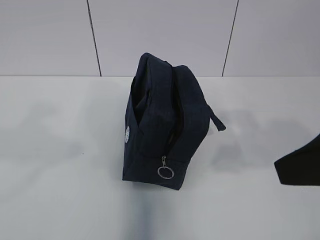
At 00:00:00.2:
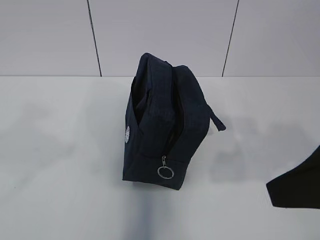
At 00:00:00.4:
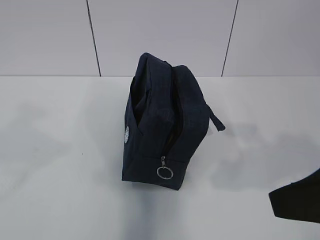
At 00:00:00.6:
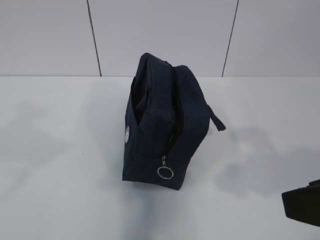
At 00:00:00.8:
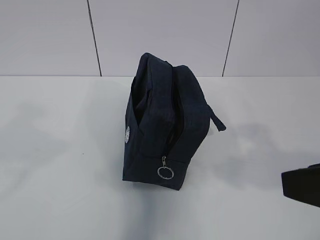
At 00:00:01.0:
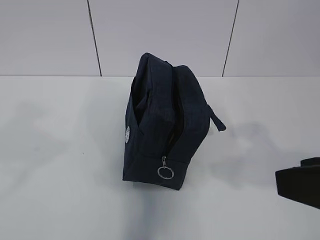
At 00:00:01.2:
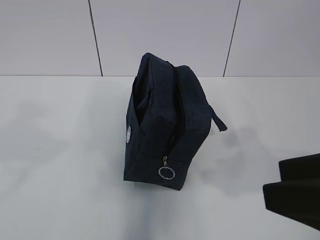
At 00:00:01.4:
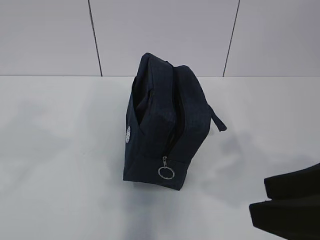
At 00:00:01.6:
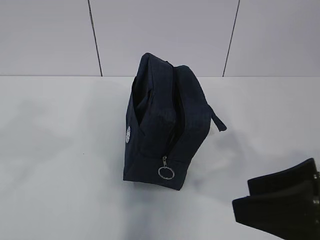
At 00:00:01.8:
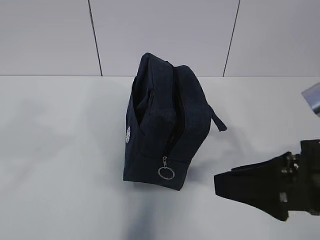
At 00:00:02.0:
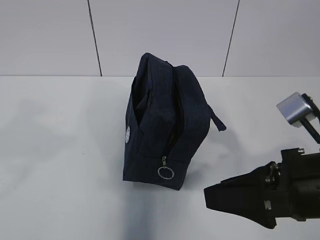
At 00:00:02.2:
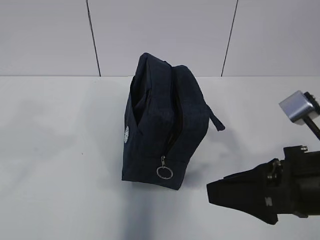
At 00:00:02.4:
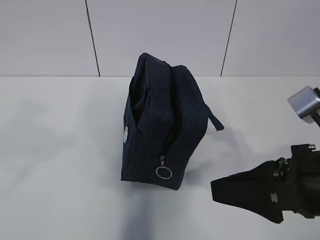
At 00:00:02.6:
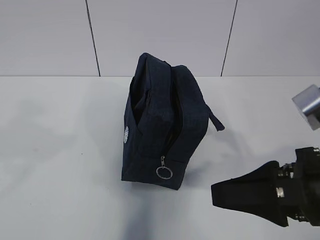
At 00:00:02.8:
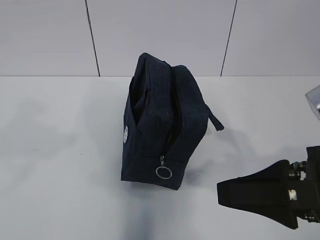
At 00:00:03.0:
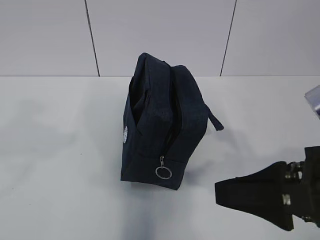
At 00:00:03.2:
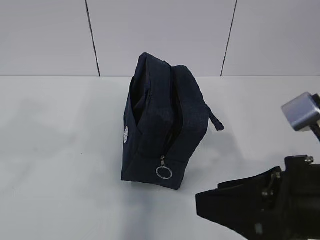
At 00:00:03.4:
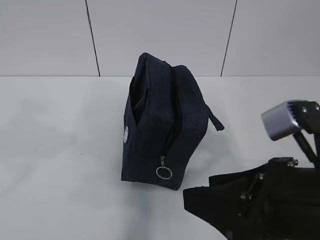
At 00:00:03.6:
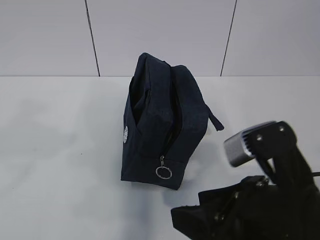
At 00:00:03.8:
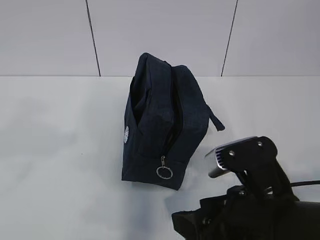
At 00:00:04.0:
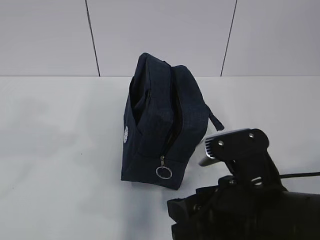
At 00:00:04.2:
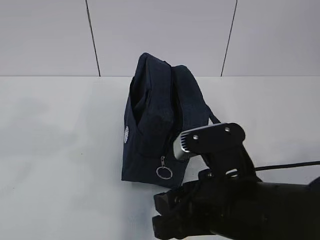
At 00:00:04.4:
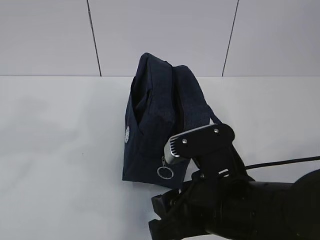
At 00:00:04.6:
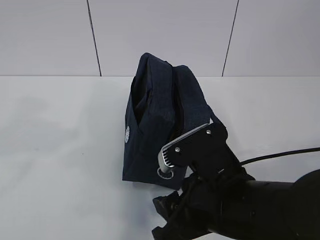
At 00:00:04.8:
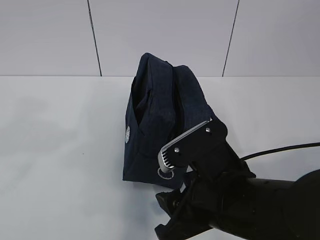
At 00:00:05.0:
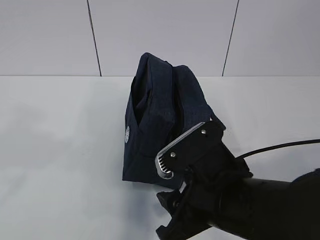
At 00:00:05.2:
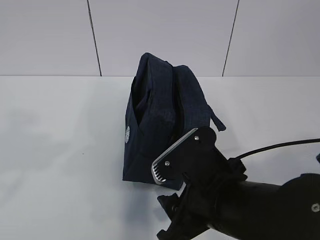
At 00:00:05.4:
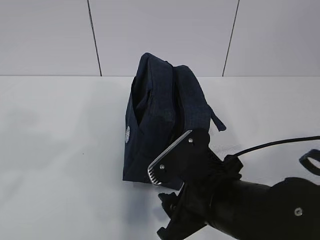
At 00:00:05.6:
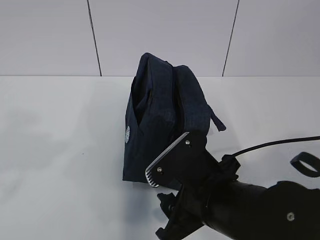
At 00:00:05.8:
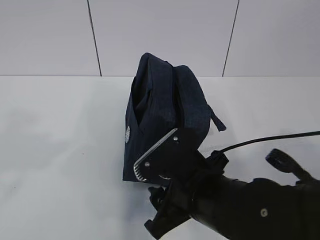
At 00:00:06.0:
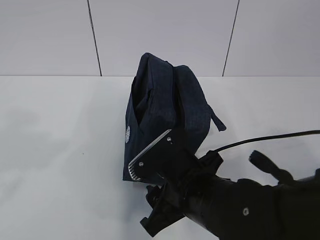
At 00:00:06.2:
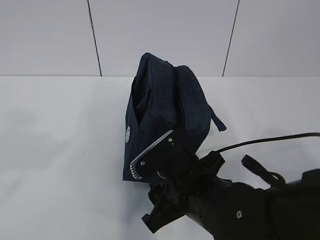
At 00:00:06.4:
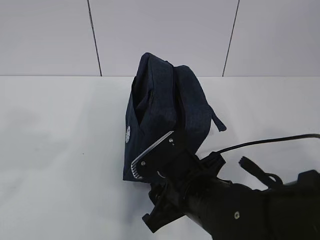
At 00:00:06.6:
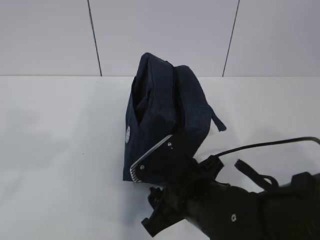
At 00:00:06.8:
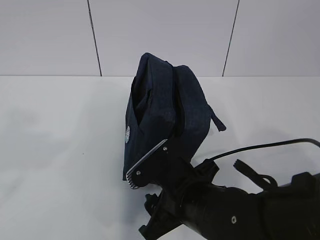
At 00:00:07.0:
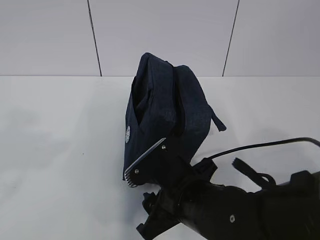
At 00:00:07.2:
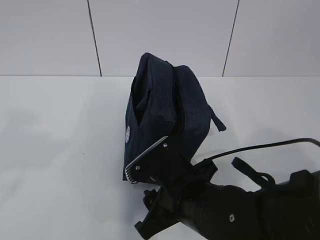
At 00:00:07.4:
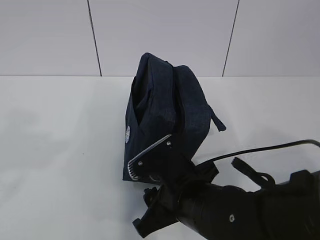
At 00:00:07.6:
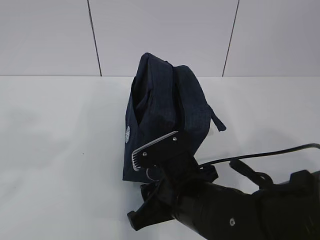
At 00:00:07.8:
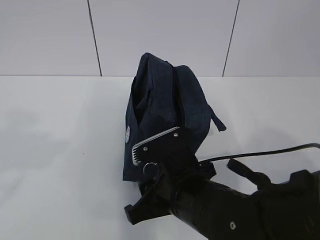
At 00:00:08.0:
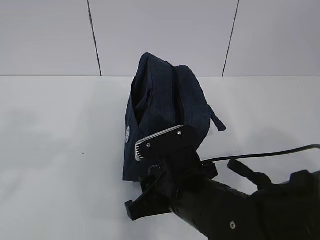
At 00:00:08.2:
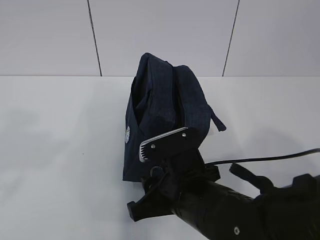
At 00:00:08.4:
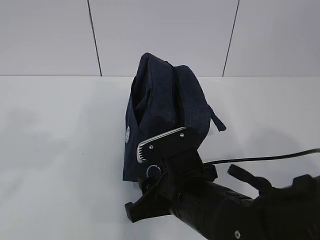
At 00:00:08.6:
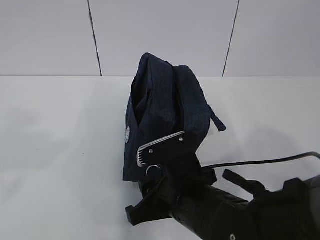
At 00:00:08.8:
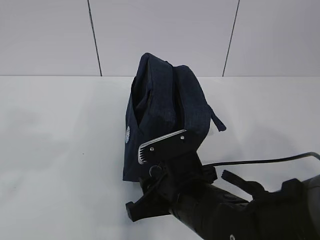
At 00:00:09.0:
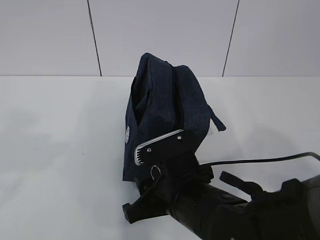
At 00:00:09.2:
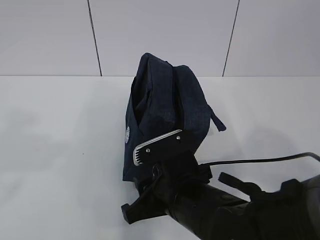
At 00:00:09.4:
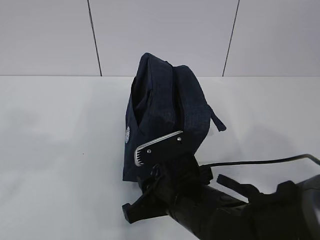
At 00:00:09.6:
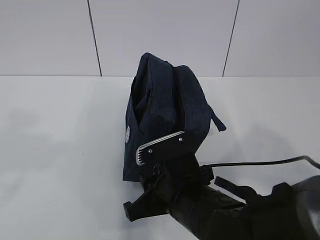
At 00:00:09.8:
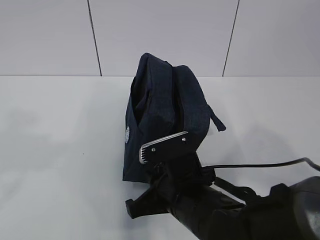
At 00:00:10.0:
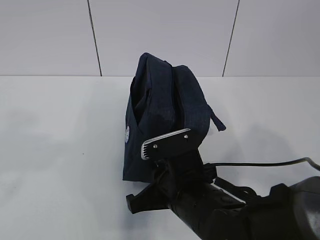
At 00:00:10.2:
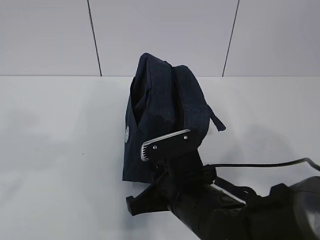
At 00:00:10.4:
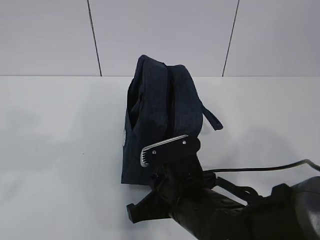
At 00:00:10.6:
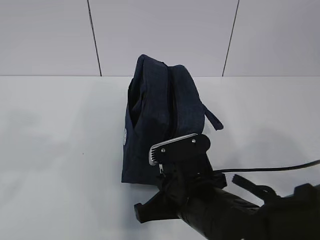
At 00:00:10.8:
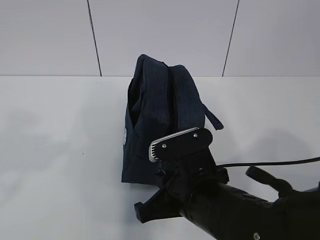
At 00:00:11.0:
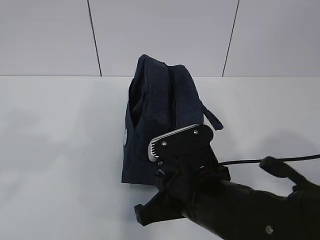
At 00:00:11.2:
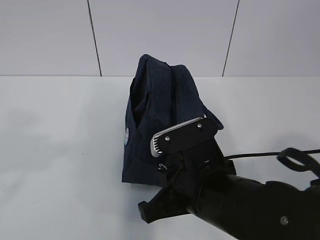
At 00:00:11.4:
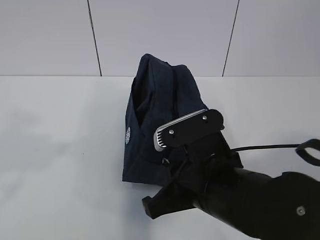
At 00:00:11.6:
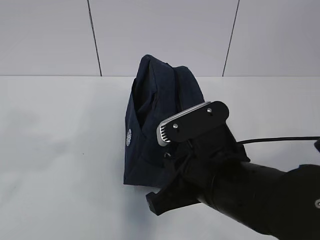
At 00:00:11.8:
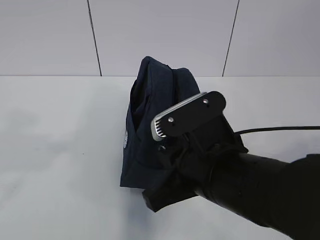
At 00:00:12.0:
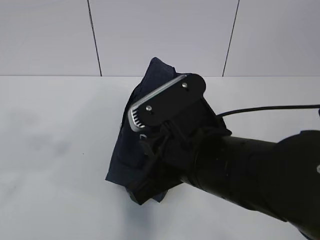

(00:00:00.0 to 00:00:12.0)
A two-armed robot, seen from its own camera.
00:00:00.0 - 00:00:01.6: The right gripper shifts approximately 5 cm downward.
00:00:03.0 - 00:00:04.4: The right gripper goes about 10 cm to the left and downward.
00:00:04.4 - 00:00:06.0: The right gripper changes place by some 5 cm.
00:00:06.0 - 00:00:07.6: The grippers move only a little.
00:00:07.6 - 00:00:09.0: The grippers move only a little.
00:00:09.0 - 00:00:10.4: The right gripper closes its fingers.
00:00:10.4 - 00:00:12.0: The right gripper moves upward, about 10 cm.

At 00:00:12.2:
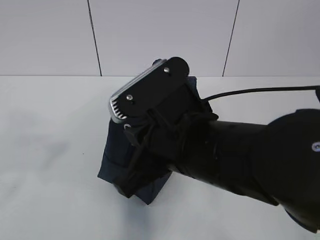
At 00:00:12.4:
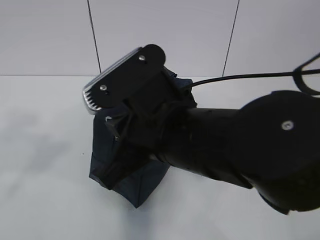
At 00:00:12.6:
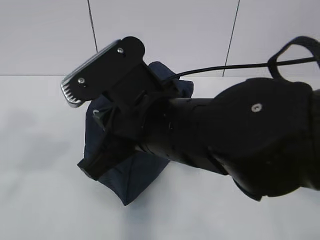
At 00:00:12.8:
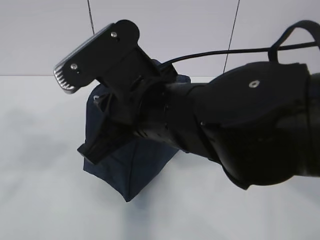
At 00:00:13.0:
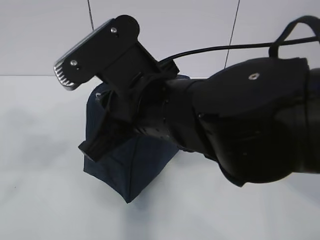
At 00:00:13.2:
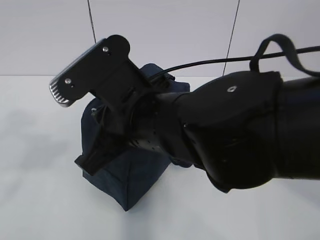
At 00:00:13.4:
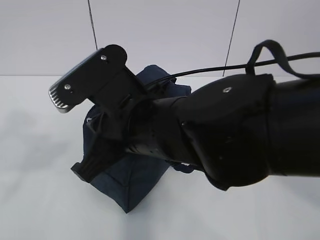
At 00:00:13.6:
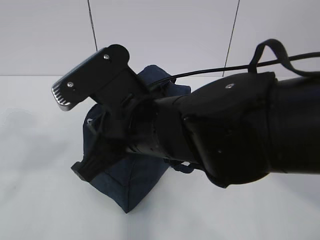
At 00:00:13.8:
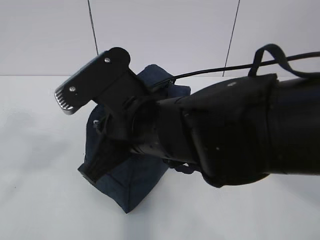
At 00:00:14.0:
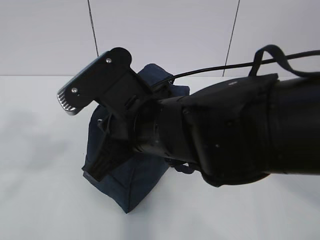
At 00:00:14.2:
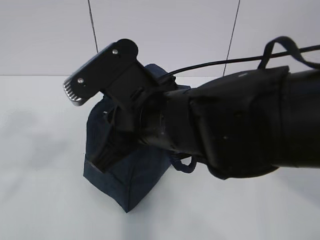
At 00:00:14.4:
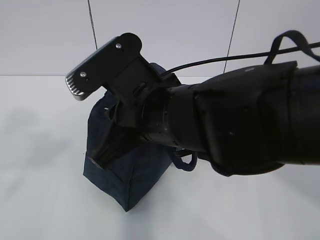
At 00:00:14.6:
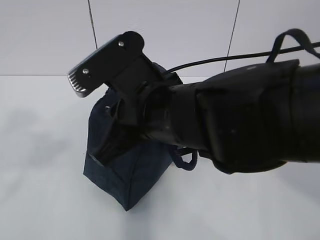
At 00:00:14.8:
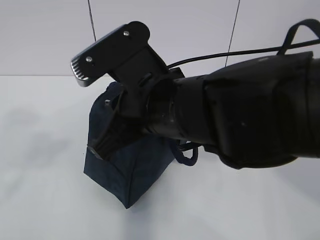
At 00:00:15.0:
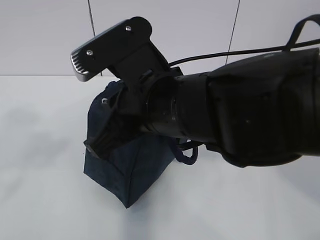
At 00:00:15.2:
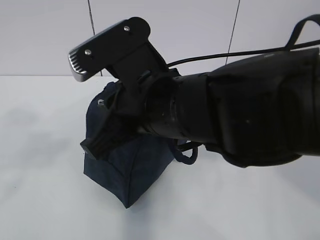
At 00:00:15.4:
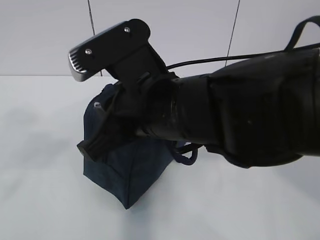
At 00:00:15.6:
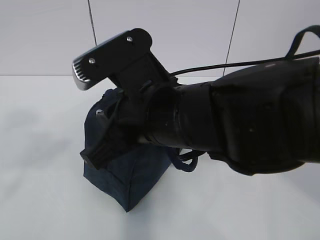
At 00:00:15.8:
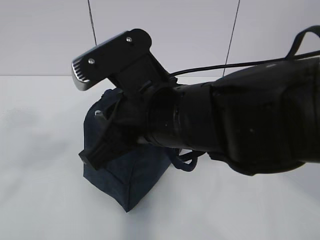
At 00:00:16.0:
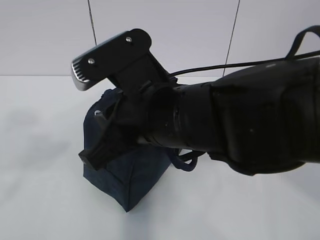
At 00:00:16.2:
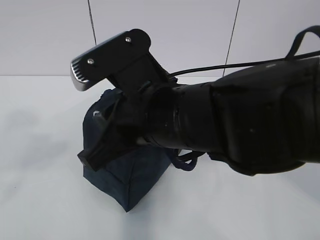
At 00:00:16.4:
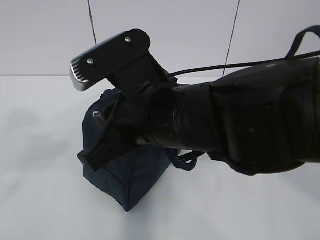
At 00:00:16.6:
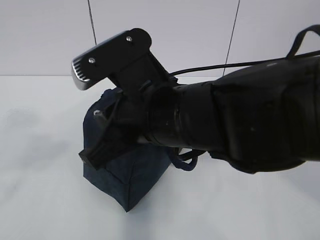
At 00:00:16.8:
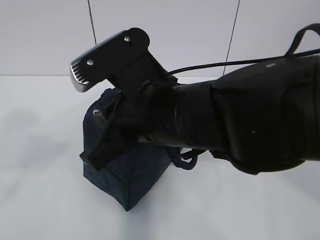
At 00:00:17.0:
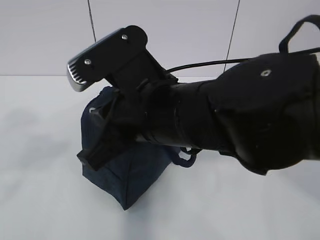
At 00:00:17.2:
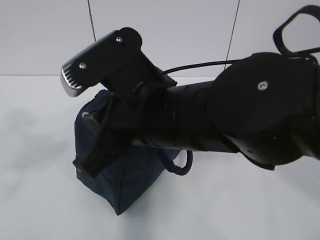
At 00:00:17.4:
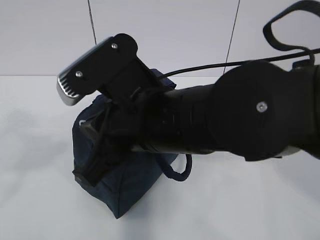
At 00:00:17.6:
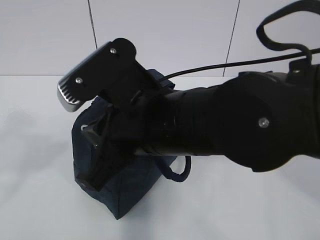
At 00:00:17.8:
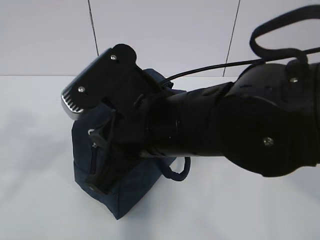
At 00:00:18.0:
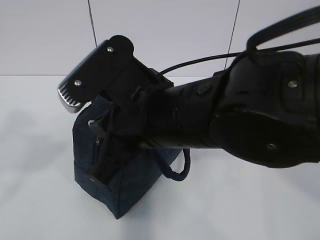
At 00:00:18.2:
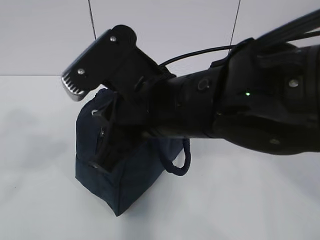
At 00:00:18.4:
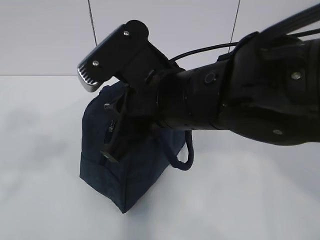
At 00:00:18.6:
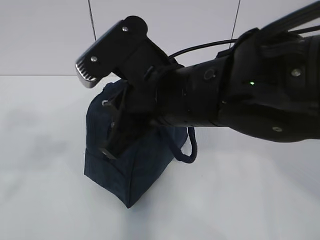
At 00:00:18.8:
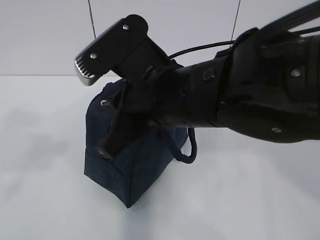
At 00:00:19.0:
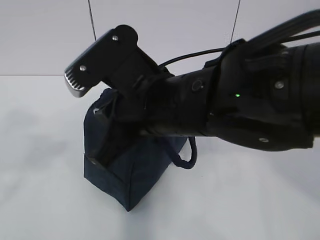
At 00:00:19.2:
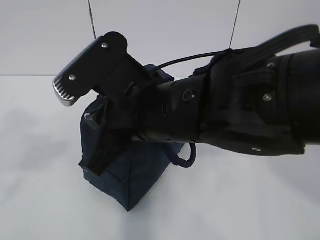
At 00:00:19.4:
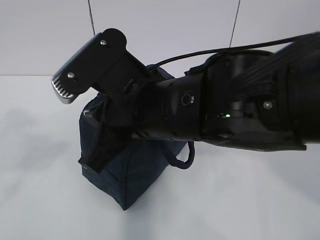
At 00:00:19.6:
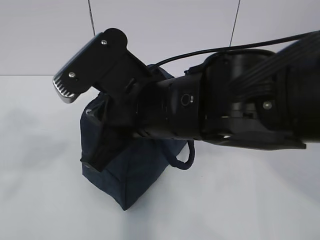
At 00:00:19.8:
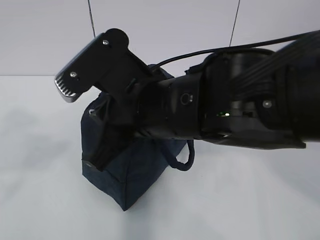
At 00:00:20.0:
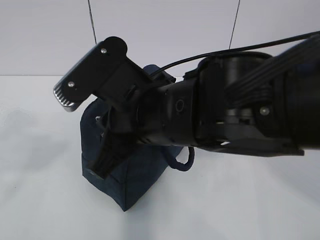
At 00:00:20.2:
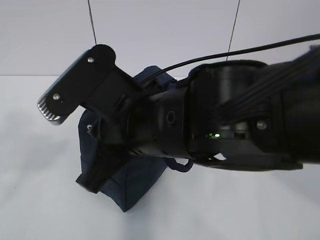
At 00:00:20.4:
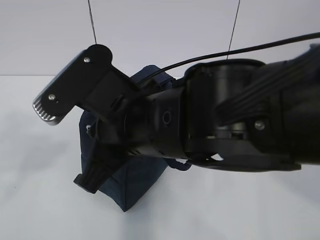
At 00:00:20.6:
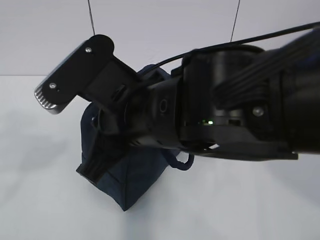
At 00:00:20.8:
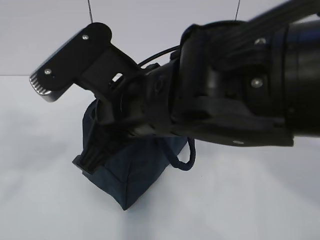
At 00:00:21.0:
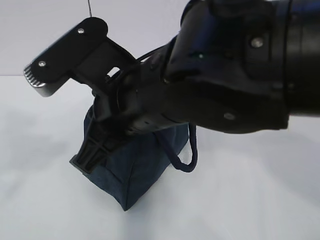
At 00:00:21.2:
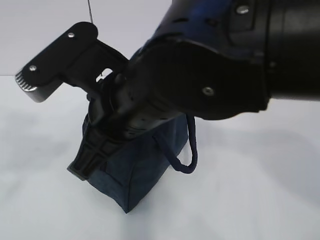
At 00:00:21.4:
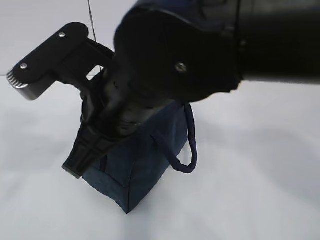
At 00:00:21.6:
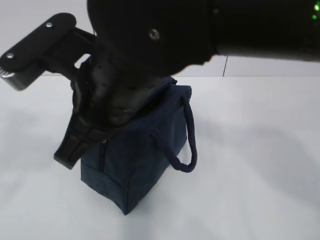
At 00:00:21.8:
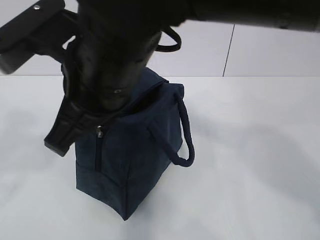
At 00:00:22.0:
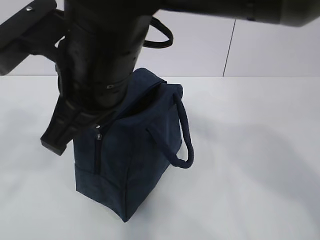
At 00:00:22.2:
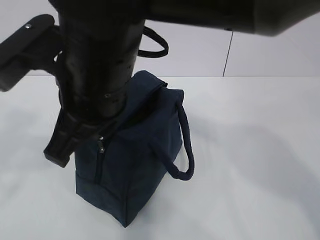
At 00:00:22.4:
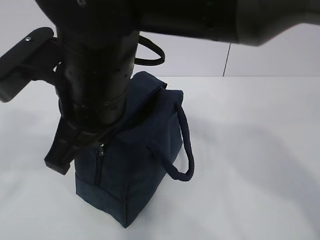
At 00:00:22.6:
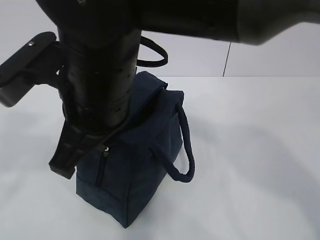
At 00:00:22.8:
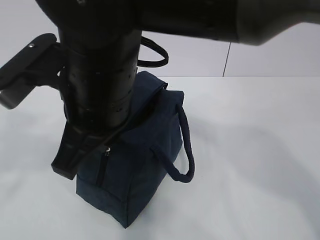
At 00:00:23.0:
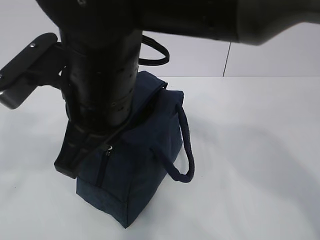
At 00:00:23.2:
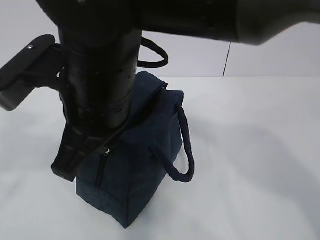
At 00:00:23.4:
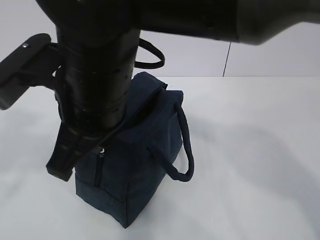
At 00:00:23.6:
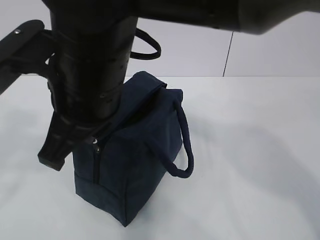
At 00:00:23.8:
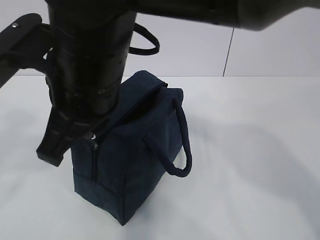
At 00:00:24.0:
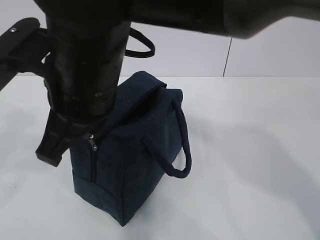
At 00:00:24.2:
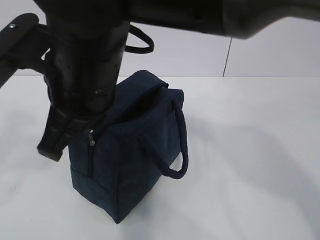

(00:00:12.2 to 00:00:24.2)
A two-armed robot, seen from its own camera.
00:00:12.2 - 00:00:13.8: The right gripper shifts by approximately 5 cm.
00:00:13.8 - 00:00:19.8: The grippers stay close to where they were, moving slightly.
00:00:22.6 - 00:00:24.2: The grippers stay close to where they were, moving slightly.
